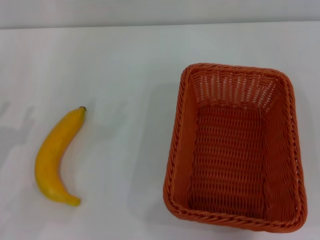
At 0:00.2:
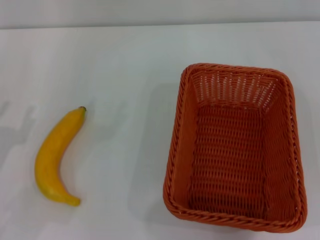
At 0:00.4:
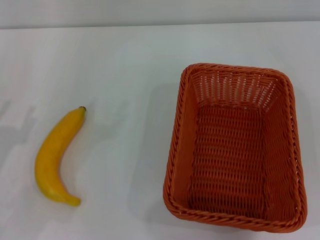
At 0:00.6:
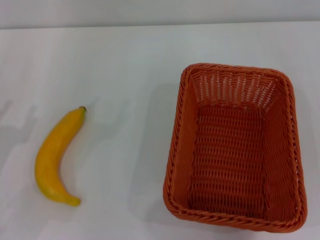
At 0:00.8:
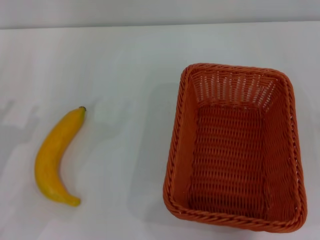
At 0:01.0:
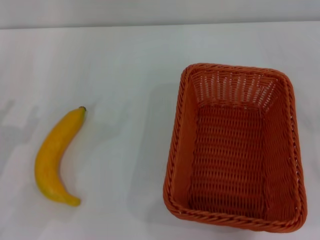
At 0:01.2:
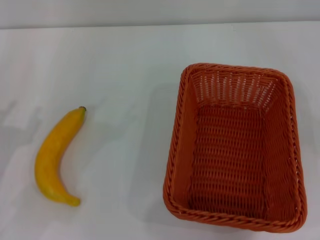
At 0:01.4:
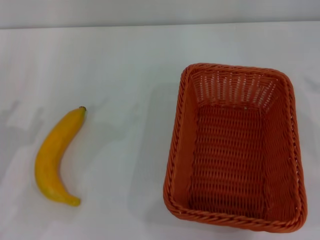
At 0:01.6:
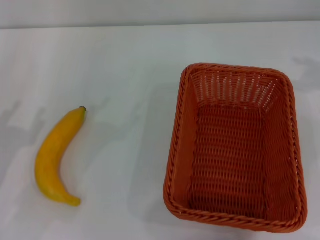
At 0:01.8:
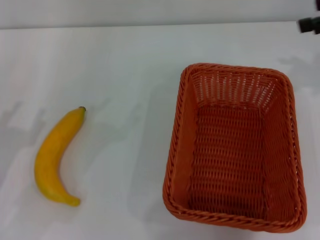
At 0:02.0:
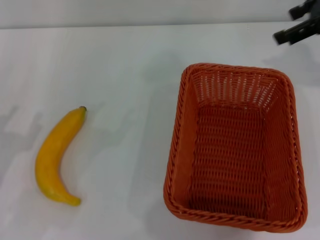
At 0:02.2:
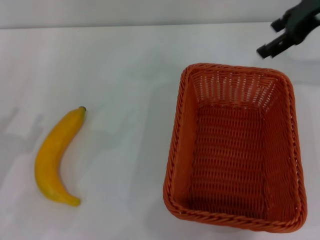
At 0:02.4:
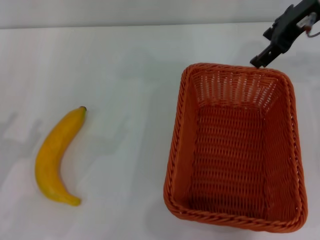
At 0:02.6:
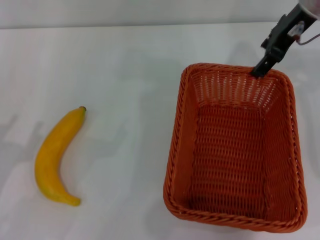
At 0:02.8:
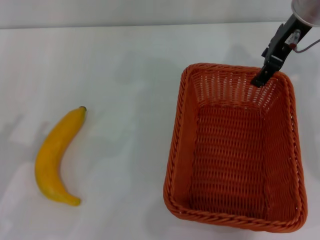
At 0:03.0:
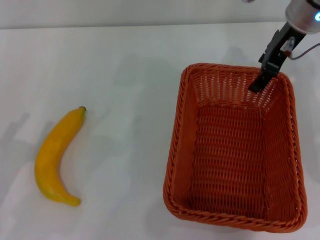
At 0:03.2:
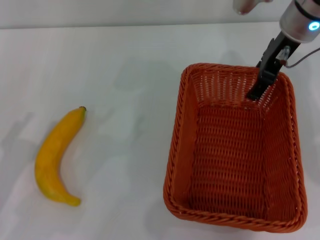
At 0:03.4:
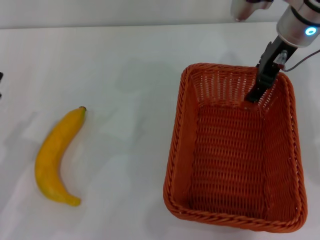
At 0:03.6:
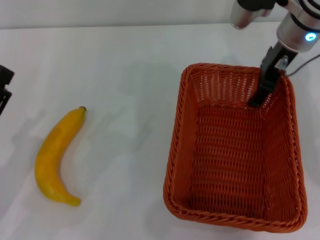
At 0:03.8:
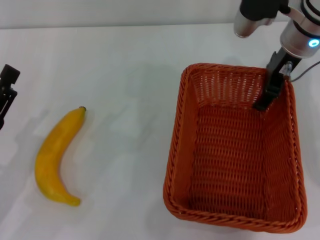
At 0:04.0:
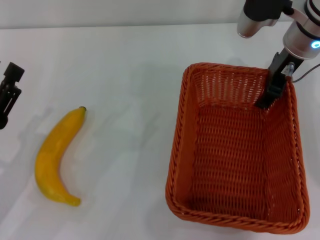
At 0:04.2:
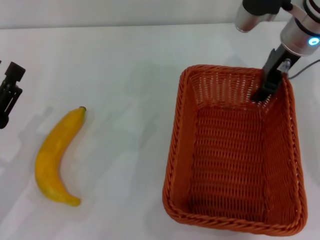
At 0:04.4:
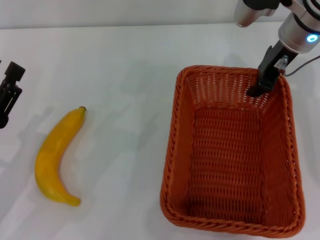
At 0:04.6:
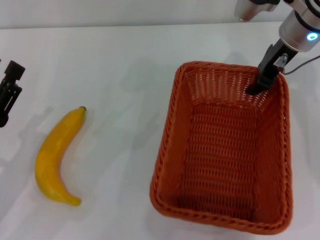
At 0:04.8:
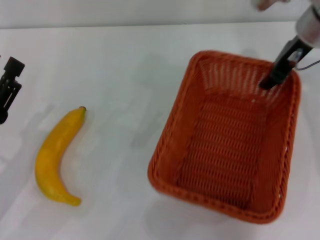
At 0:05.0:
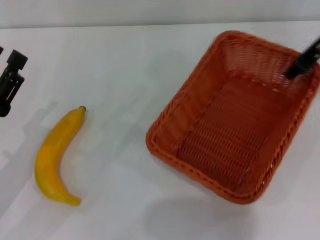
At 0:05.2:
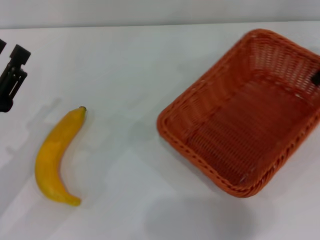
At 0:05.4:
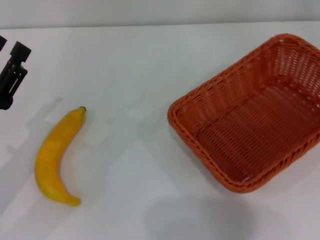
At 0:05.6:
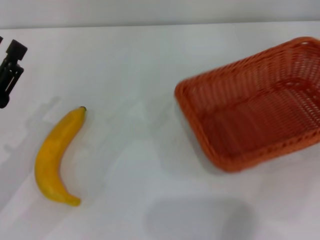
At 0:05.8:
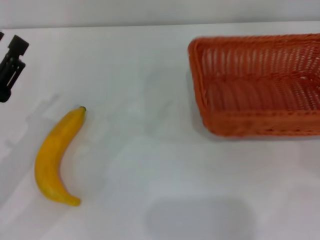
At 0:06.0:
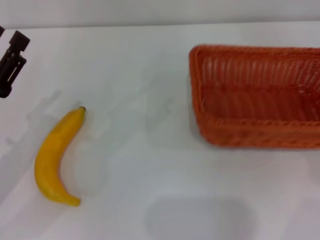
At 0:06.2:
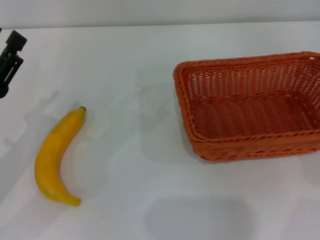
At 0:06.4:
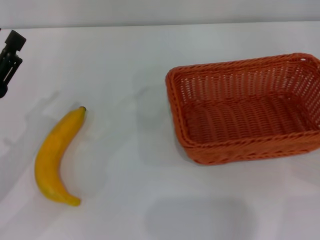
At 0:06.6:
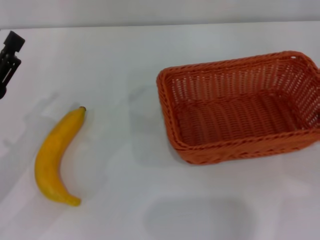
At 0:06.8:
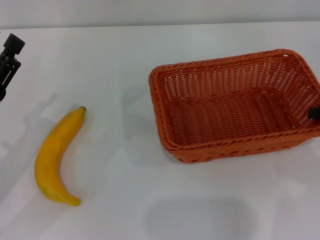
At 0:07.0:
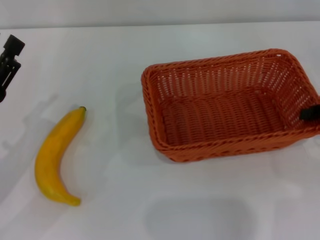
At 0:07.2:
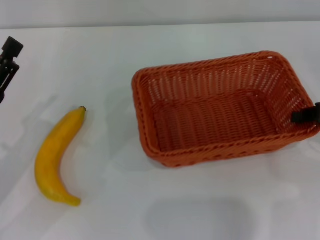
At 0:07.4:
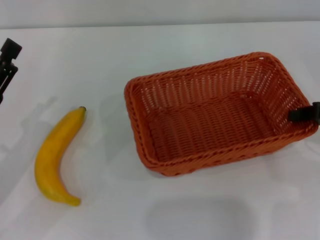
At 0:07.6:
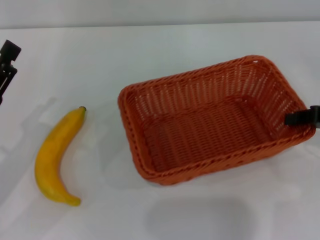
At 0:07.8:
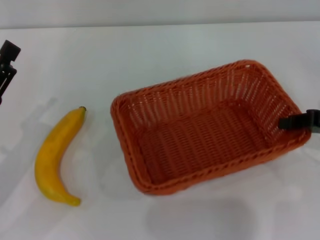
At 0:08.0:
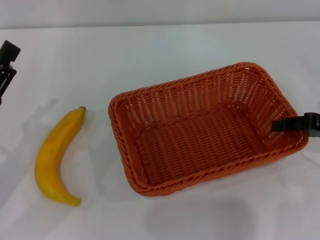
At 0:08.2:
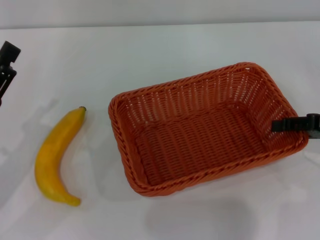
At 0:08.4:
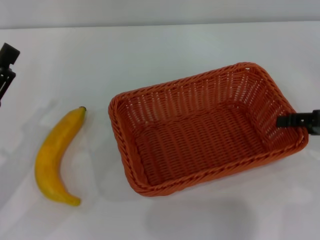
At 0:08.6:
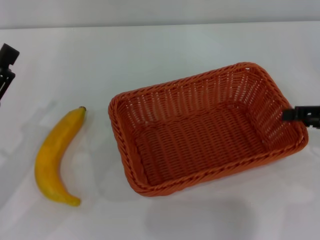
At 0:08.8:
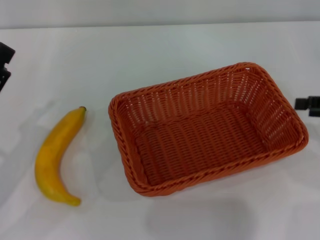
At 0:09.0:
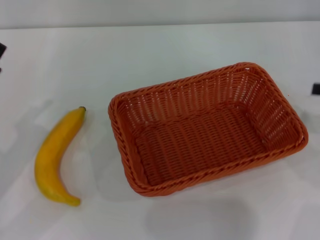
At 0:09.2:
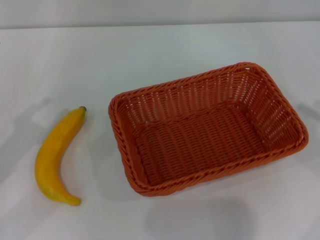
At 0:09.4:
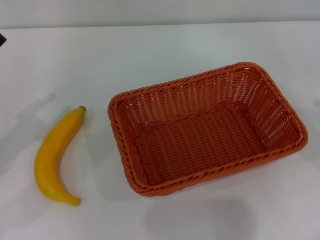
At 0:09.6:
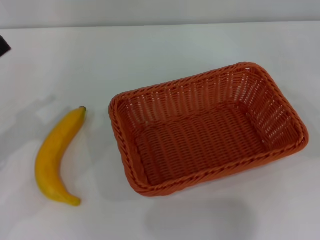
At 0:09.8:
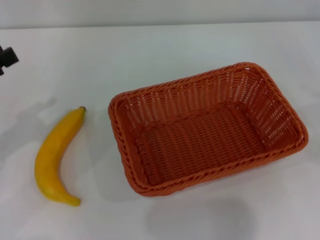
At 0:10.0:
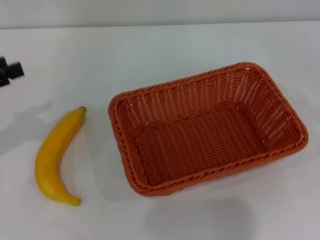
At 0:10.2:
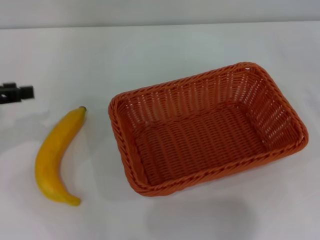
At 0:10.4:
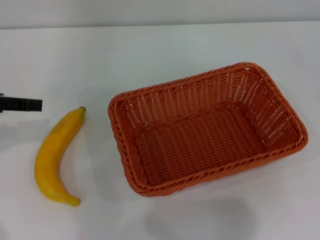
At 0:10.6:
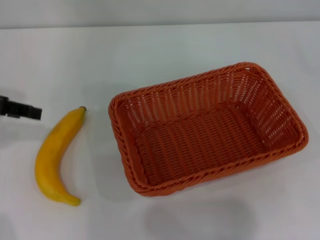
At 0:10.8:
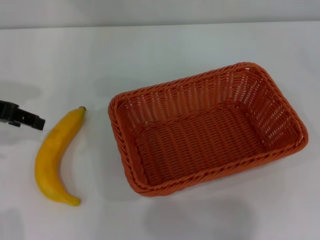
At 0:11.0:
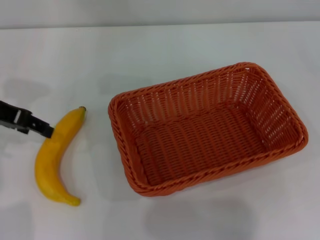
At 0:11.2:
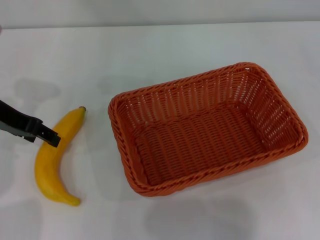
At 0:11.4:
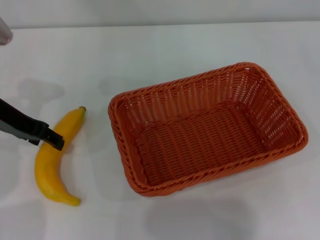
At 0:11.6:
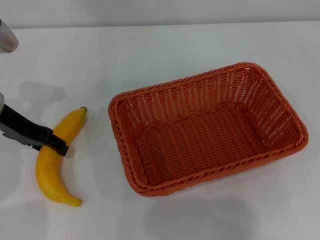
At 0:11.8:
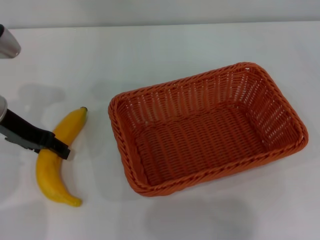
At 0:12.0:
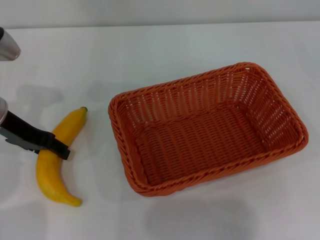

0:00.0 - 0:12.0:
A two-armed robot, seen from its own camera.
Step, 0:00.0 - 0:04.8: Pick up the light basket with the right gripper.
Step, 0:05.2 - 0:08.6: Place the light basket in the center of view with the right gripper.
0:01.6 - 0:03.0: The right gripper heads to the left and forward, covering approximately 20 cm.
0:03.0 - 0:04.4: The right gripper closes.
0:04.4 - 0:06.0: The right gripper heads to the right and backward, covering about 25 cm, and closes.
0:06.0 - 0:07.6: The right gripper travels to the left by some 10 cm.
0:07.6 - 0:09.0: The right gripper shifts about 5 cm to the right, and opens up.
0:09.0 - 0:10.4: The left gripper moves upward and forward, approximately 15 cm.
0:10.4 - 0:12.0: The left gripper is displaced to the right and downward by some 10 cm.

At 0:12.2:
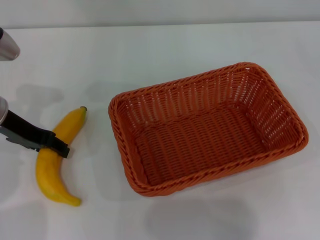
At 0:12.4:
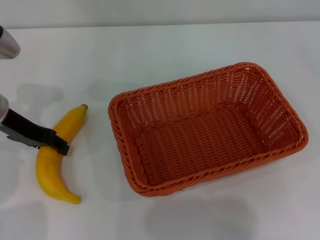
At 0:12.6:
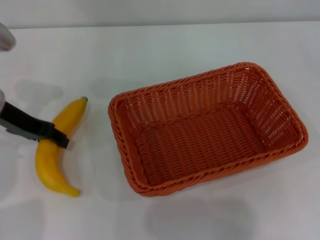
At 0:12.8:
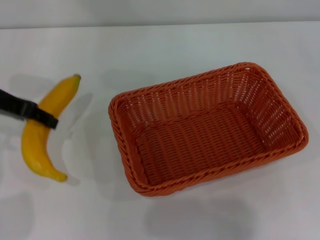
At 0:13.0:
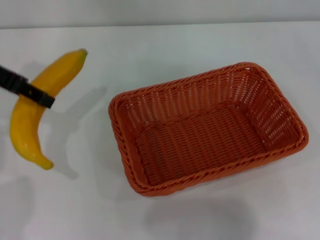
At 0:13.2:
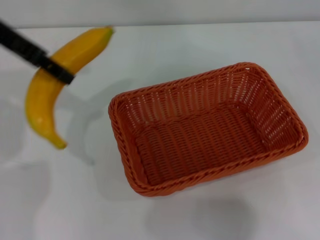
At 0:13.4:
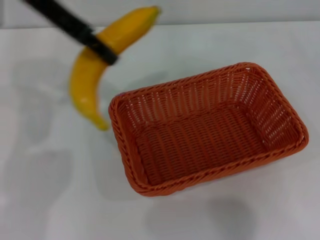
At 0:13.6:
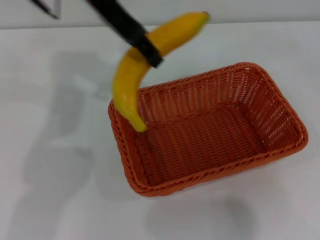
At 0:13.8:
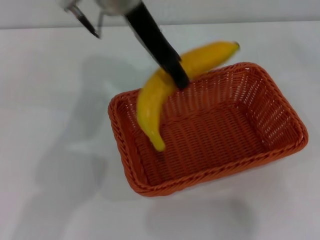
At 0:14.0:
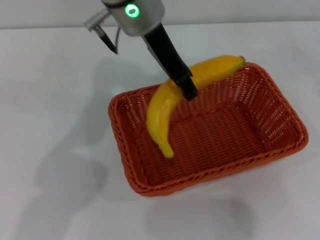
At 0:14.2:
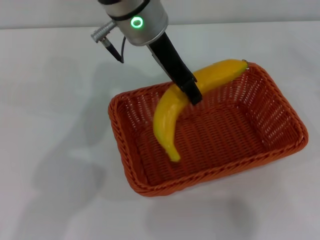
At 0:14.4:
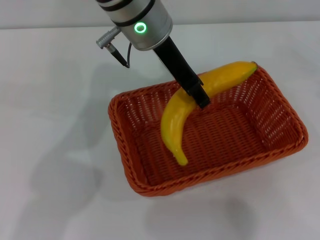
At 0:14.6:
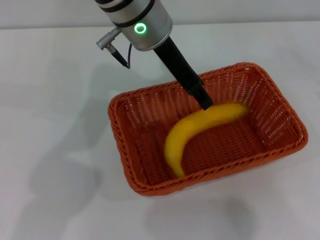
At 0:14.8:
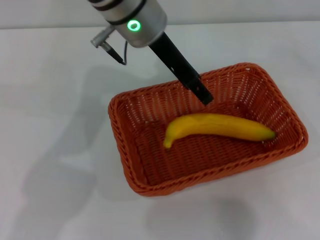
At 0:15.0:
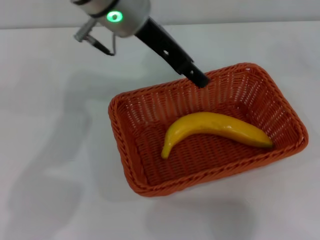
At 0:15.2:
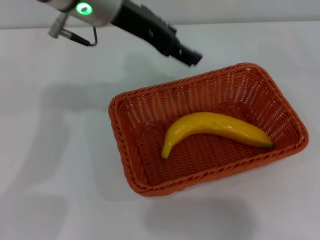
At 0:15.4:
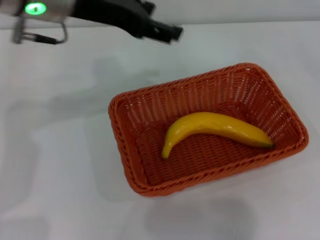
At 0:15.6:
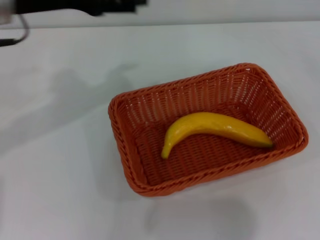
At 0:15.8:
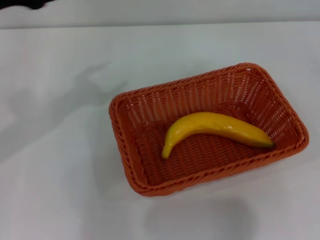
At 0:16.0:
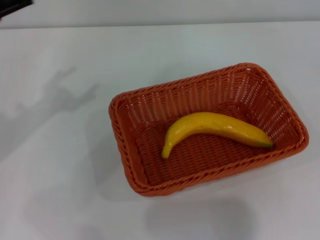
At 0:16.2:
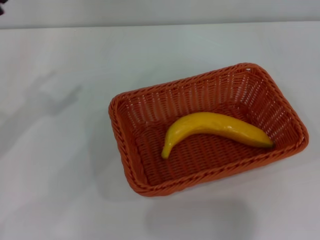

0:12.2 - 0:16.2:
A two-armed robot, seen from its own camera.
Step, 0:13.0 - 0:14.8: Place the banana into the light basket with the left gripper.
0:12.2 - 0:13.6: The left gripper is displaced upward and to the right by about 25 cm.
0:13.6 - 0:14.8: The left gripper is displaced to the right and downward by some 10 cm, and opens up.
0:14.8 - 0:16.2: The left gripper heads to the left and backward, covering some 30 cm, and opens up. Meanwhile the right gripper is displaced backward by approximately 10 cm.
